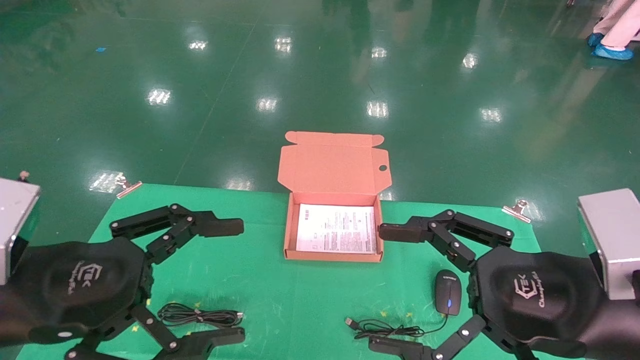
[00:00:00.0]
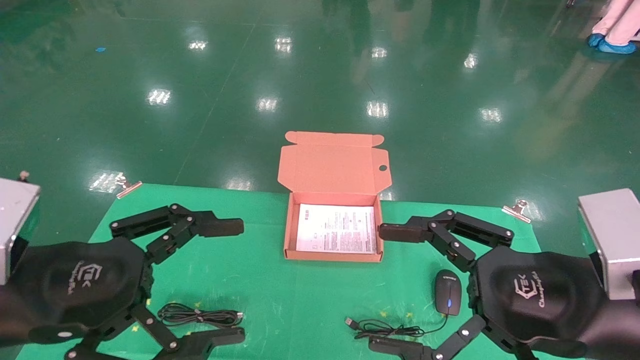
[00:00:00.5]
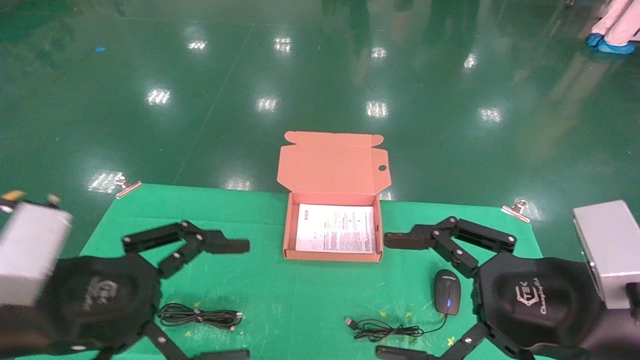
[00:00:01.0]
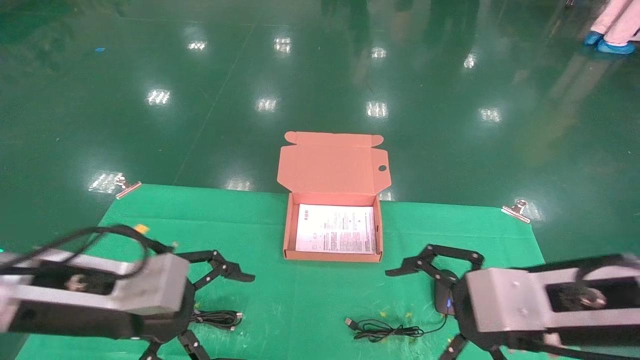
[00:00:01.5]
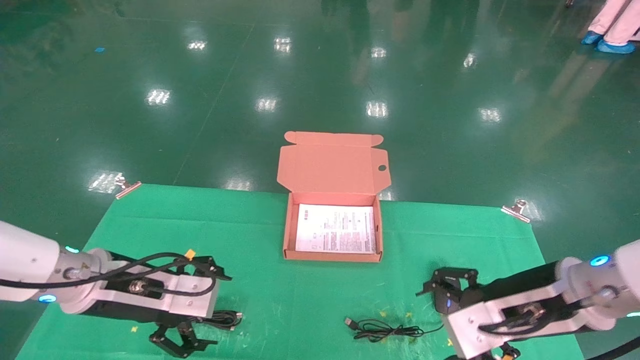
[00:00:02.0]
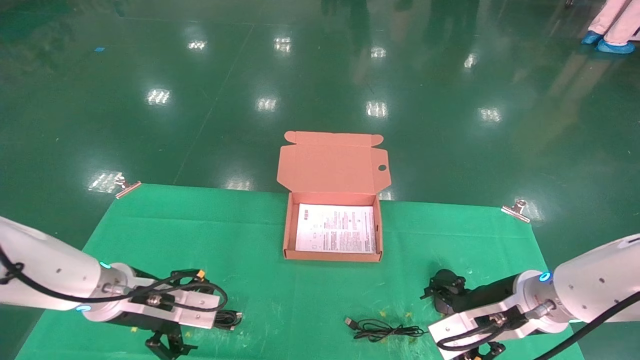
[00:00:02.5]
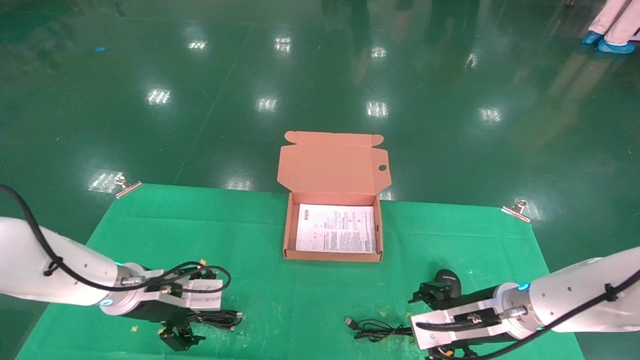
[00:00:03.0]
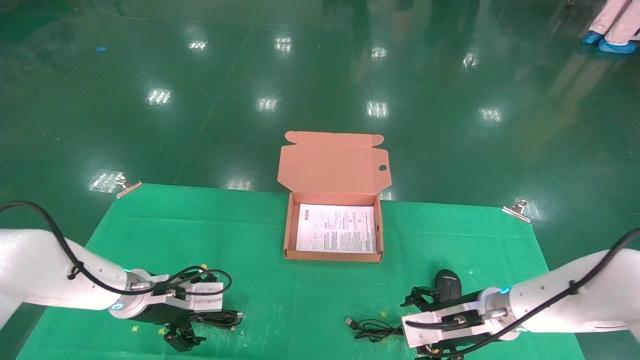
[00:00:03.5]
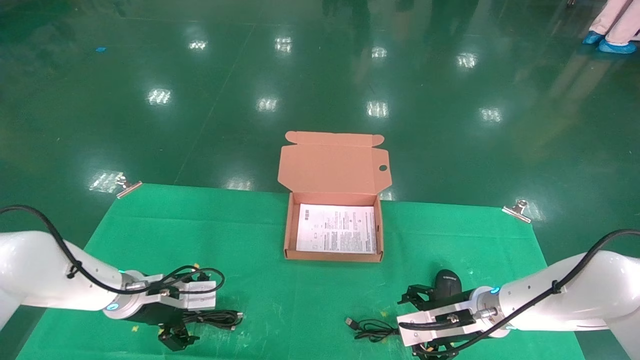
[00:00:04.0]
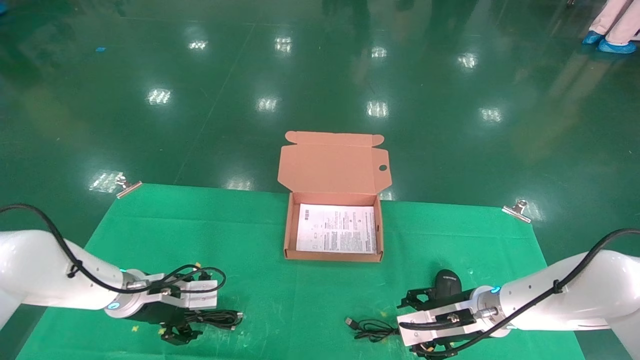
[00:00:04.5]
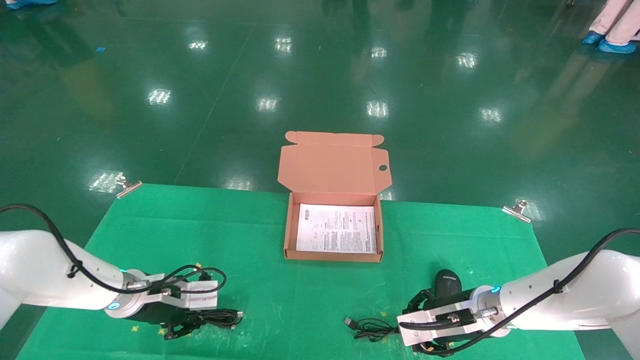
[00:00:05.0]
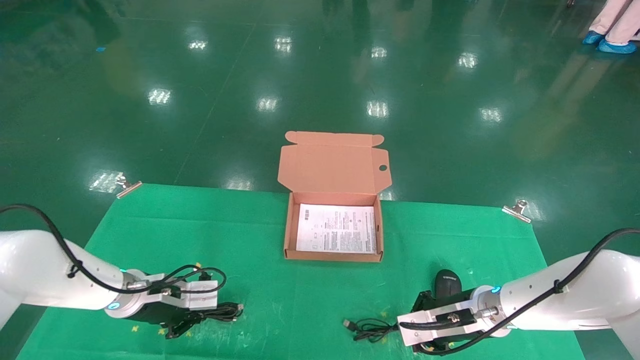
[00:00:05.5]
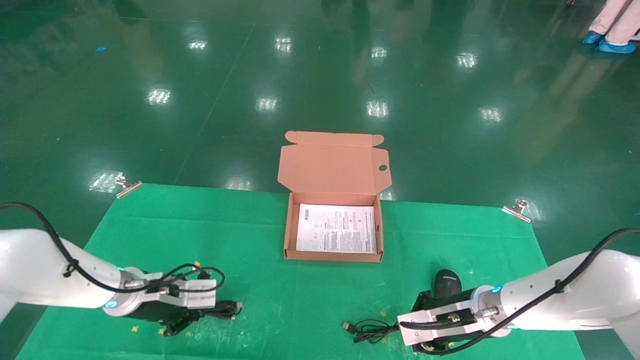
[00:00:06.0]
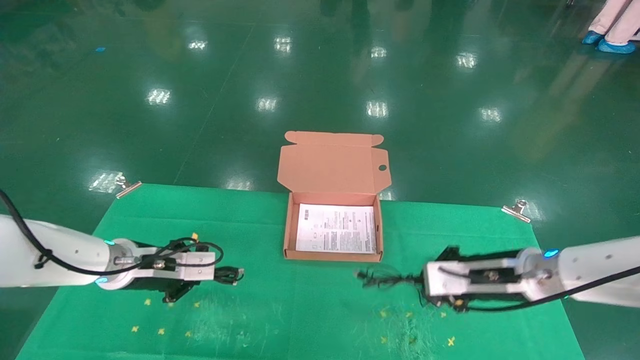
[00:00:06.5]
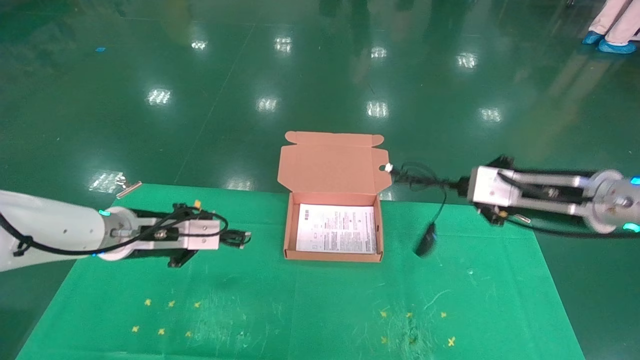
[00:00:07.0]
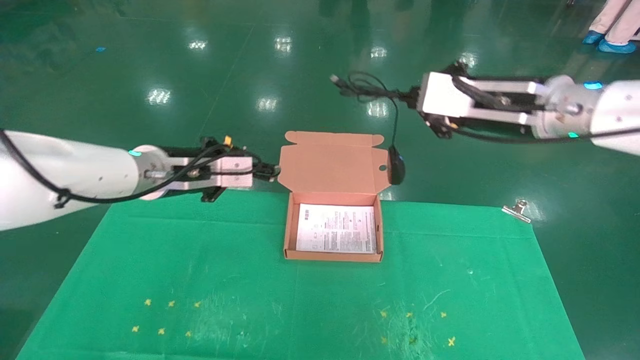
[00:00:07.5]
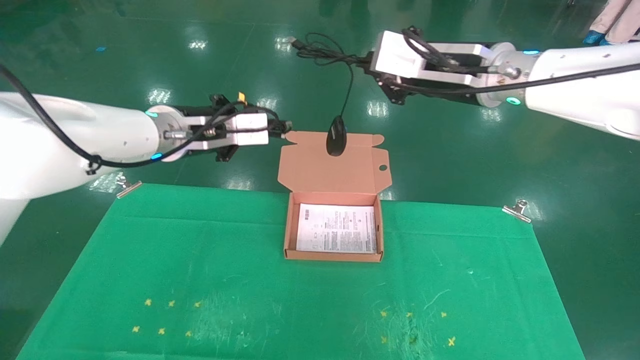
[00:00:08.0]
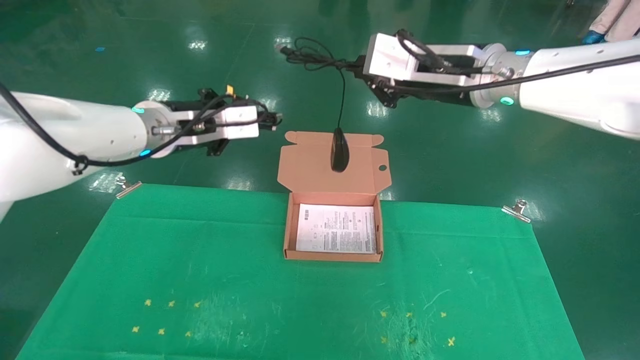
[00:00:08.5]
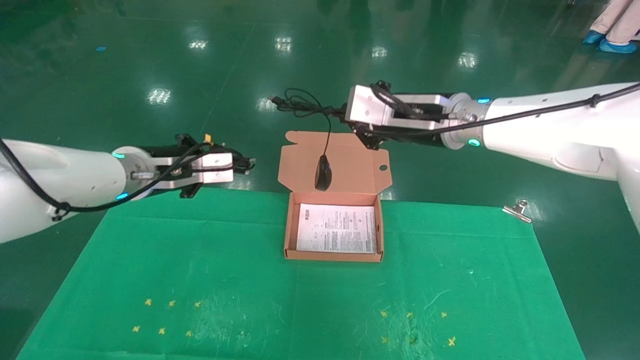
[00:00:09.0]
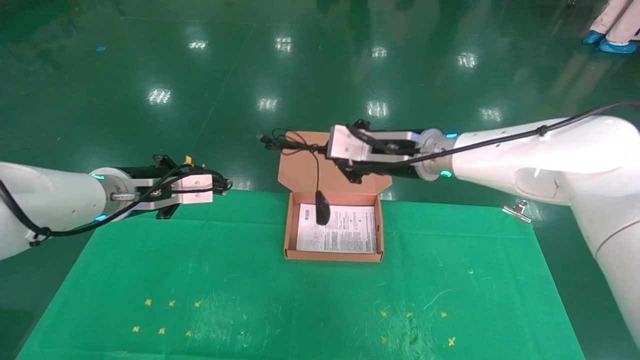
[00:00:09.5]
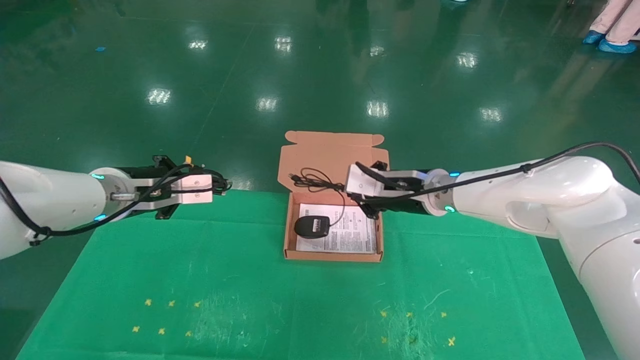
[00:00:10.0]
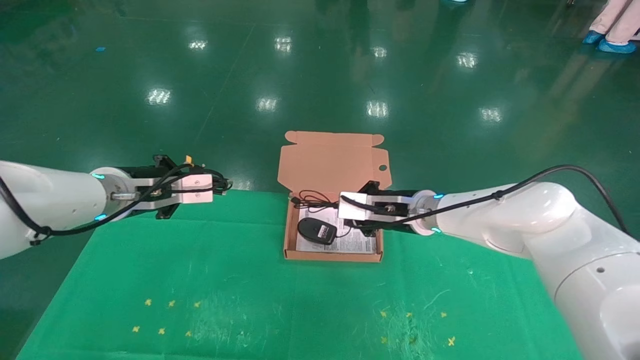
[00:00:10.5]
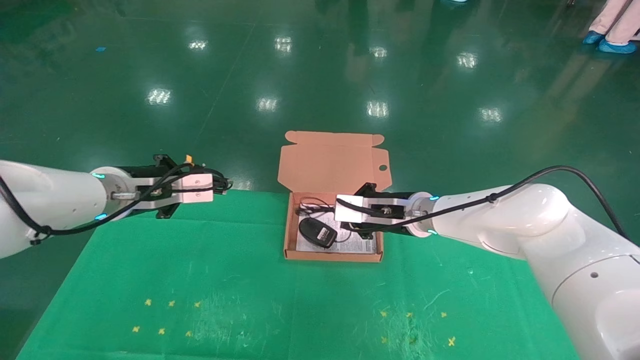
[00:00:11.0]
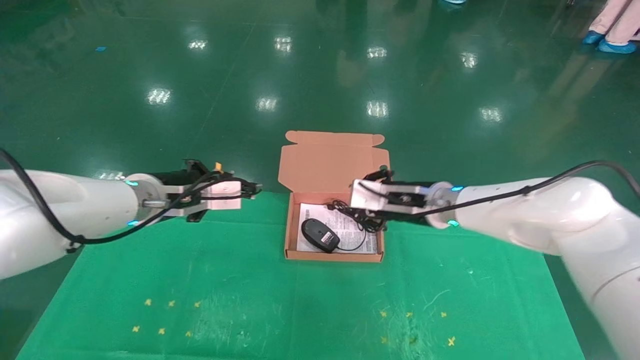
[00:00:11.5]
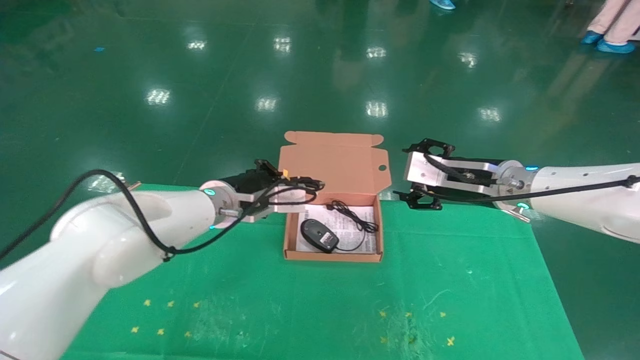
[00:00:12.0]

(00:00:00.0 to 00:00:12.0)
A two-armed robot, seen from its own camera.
Task of the whole recording: grasp data cable left put into box grasp mouse right put into box.
Step, 00:00:01.5 - 00:00:05.5: Grab and pick up both the mouse and power cord from the accessory packaging area at the same time.
00:00:00.0 - 00:00:02.0: Both grippers travel together forward and downward, roughly 15 cm.
00:00:02.0 - 00:00:04.0: The left gripper is displaced forward and downward by some 15 cm. The right gripper heads downward and forward, covering about 15 cm.
00:00:04.0 - 00:00:06.0: The left gripper closes up. Meanwhile the right gripper closes its fingers.
00:00:06.0 - 00:00:08.0: The two grippers go some 30 cm upward.
00:00:08.0 - 00:00:10.0: The left gripper goes approximately 10 cm downward and to the left; the right gripper heads downward and forward, covering approximately 20 cm.
00:00:10.0 - 00:00:12.0: The two grippers go roughly 10 cm to the right. The right gripper opens.

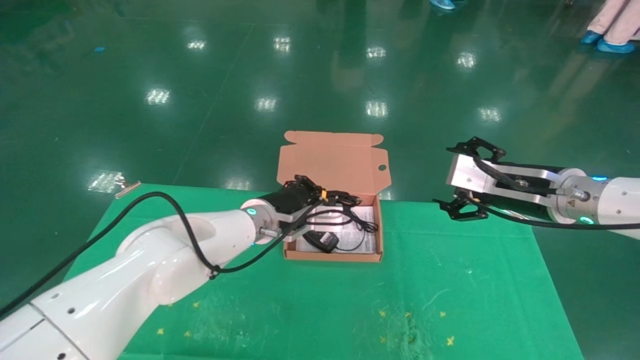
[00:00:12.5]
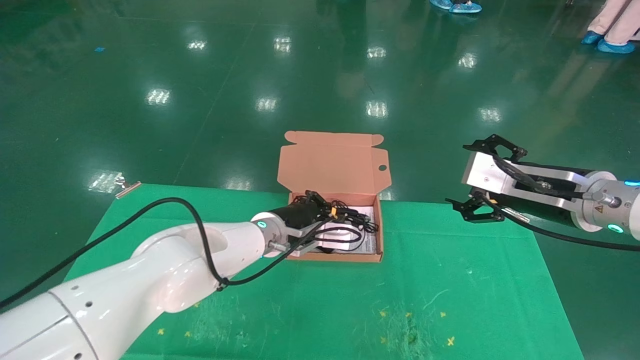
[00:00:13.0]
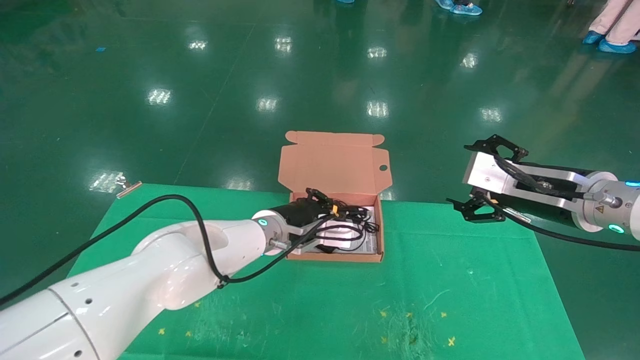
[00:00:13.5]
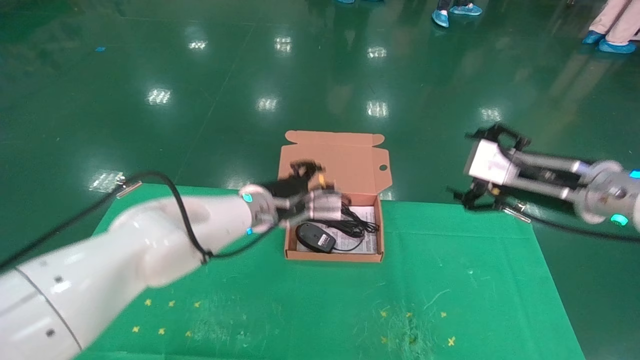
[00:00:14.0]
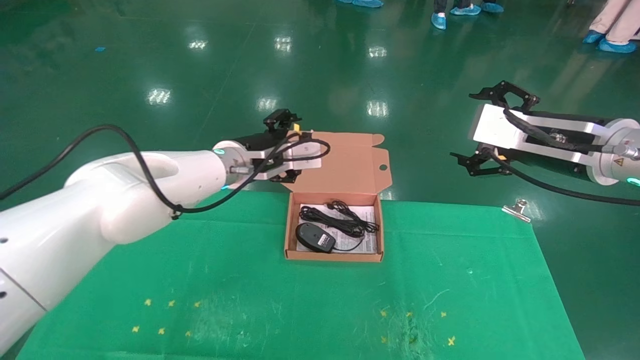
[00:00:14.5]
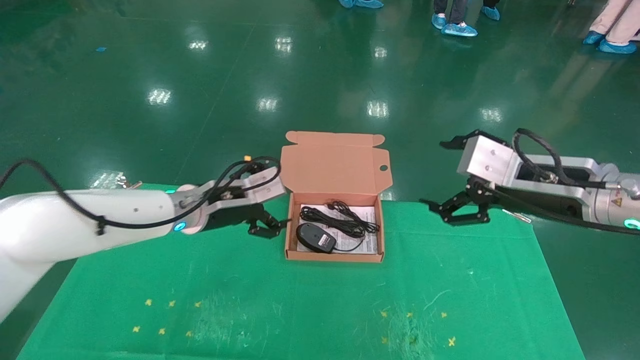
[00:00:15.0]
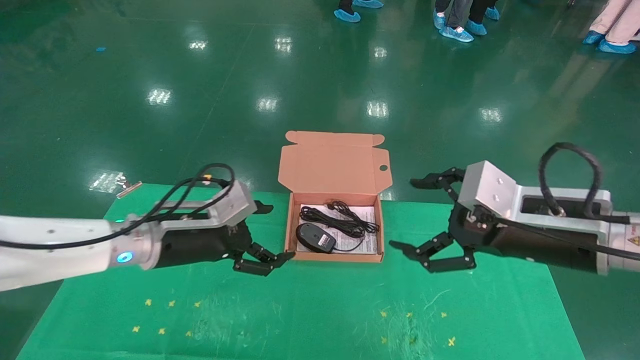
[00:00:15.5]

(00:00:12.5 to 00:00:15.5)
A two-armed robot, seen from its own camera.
Task of the whole recording: grasp data cable left put into box grasp mouse right put into box.
00:00:12.5 - 00:00:14.0: The left gripper goes some 5 cm upward, and opens. Meanwhile the right gripper ends up some 5 cm from where it was.
00:00:14.0 - 00:00:15.5: The left gripper moves to the left and backward, approximately 15 cm, and opens up, while the right gripper goes approximately 10 cm backward and downward.
